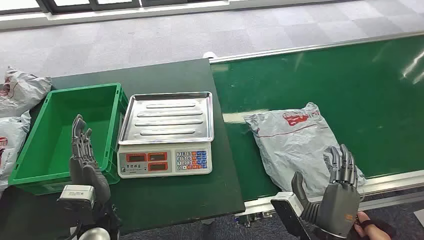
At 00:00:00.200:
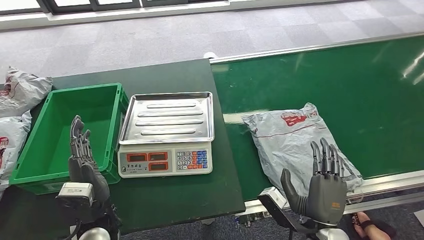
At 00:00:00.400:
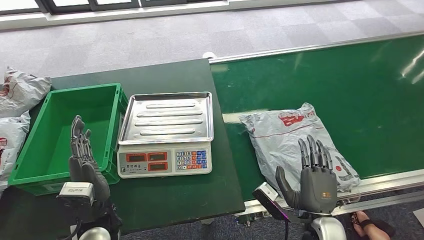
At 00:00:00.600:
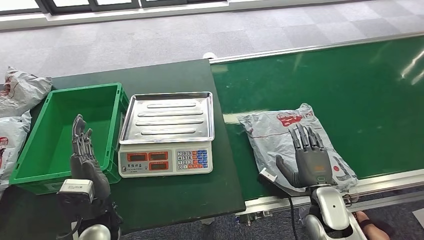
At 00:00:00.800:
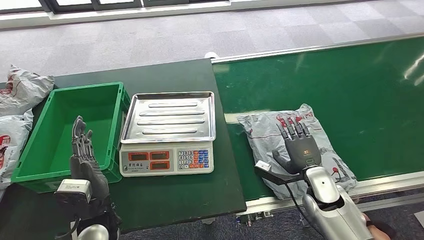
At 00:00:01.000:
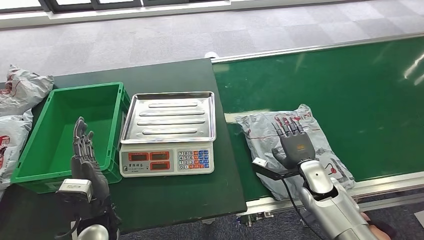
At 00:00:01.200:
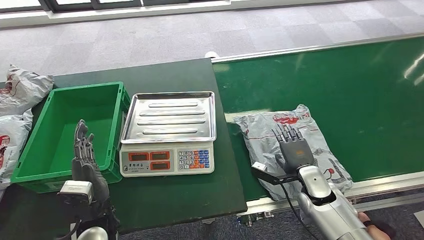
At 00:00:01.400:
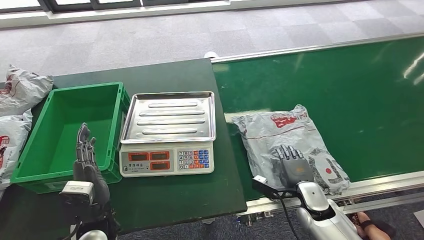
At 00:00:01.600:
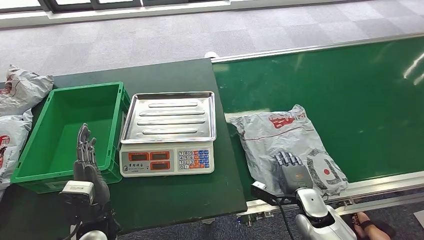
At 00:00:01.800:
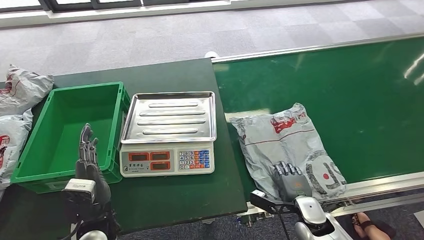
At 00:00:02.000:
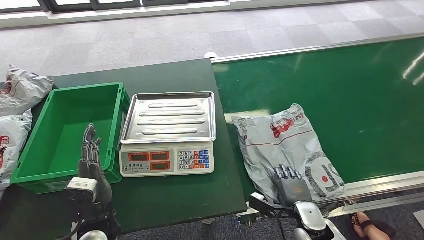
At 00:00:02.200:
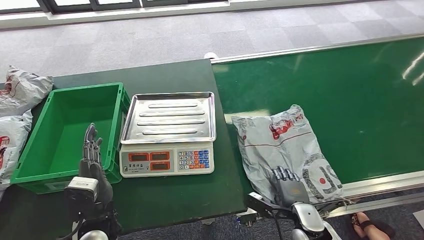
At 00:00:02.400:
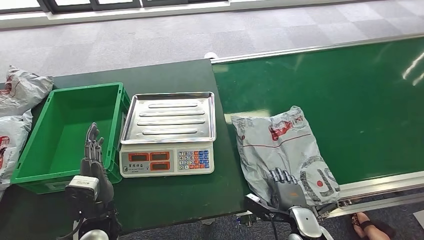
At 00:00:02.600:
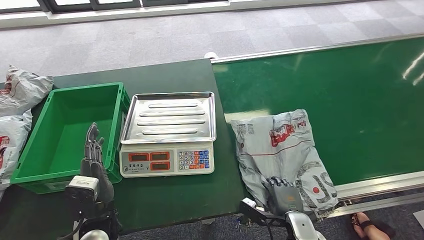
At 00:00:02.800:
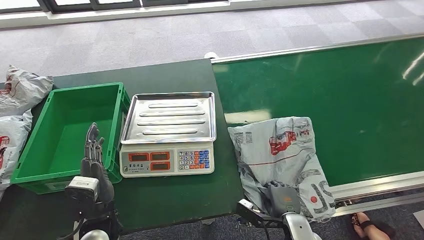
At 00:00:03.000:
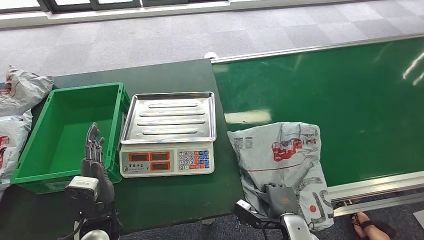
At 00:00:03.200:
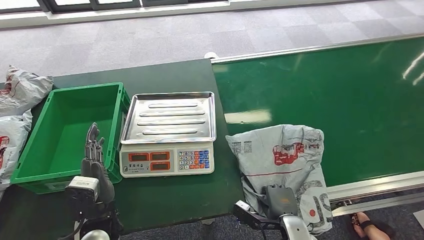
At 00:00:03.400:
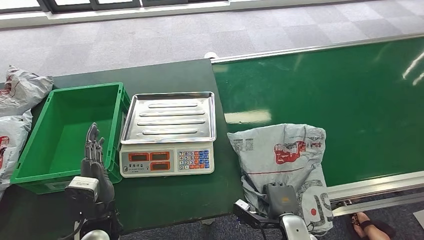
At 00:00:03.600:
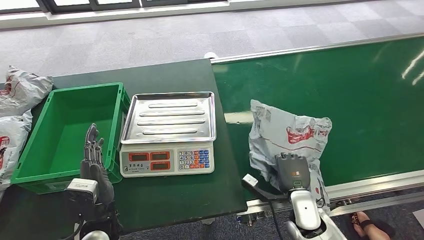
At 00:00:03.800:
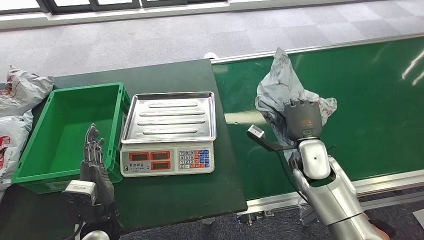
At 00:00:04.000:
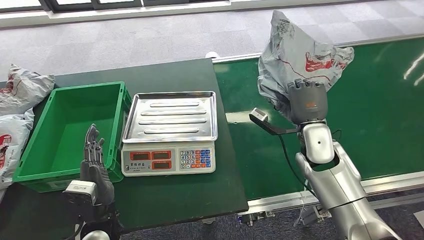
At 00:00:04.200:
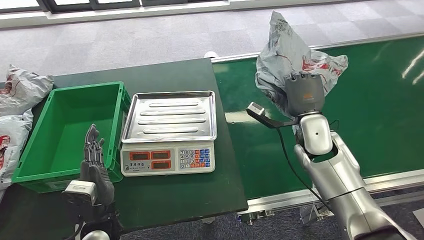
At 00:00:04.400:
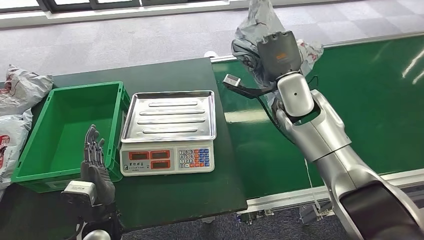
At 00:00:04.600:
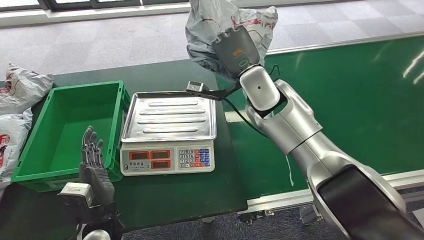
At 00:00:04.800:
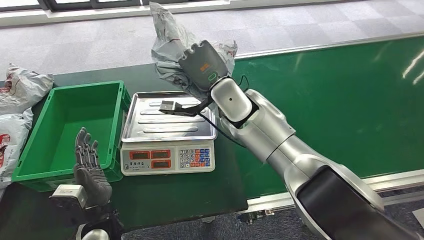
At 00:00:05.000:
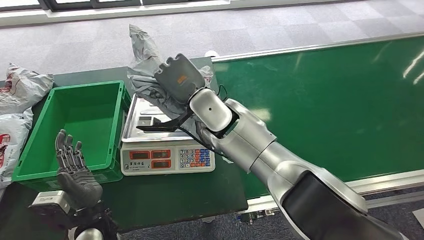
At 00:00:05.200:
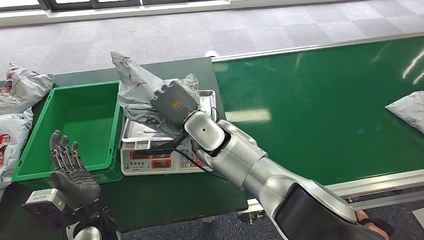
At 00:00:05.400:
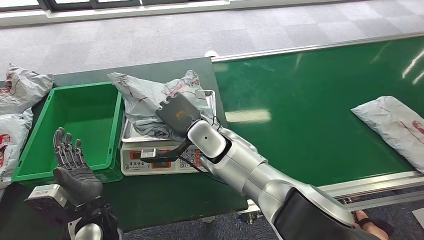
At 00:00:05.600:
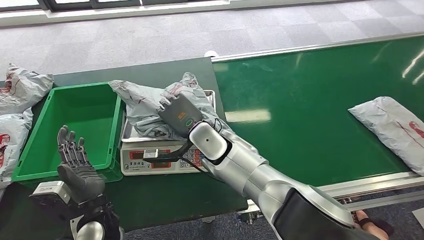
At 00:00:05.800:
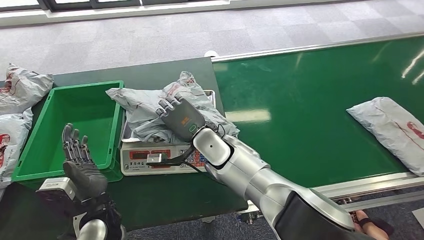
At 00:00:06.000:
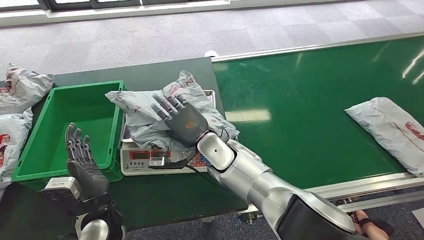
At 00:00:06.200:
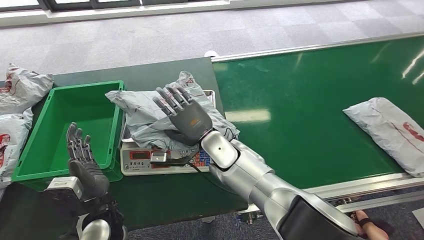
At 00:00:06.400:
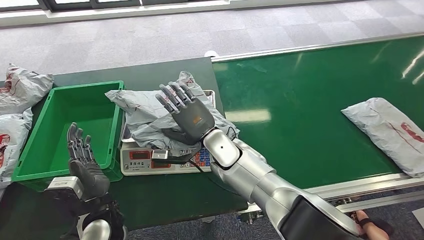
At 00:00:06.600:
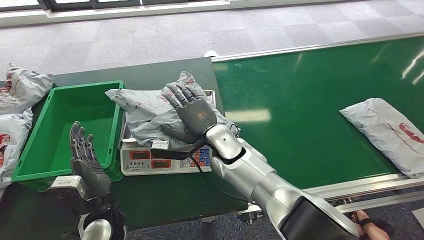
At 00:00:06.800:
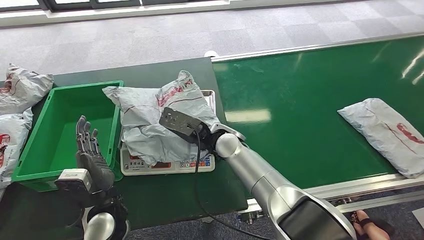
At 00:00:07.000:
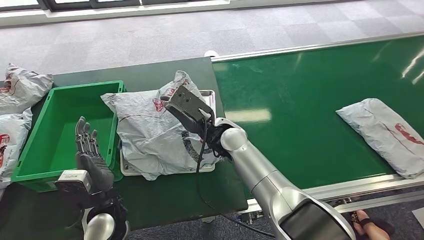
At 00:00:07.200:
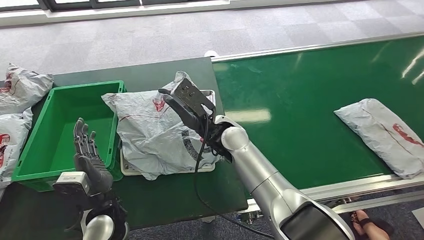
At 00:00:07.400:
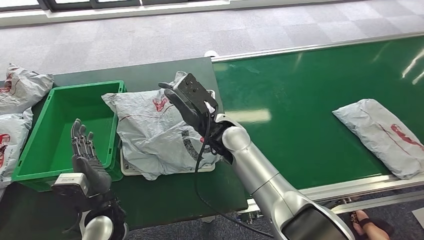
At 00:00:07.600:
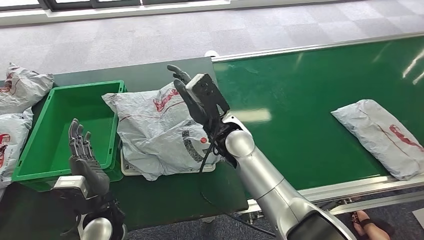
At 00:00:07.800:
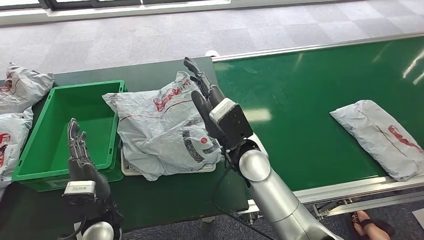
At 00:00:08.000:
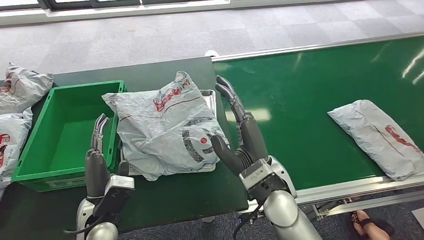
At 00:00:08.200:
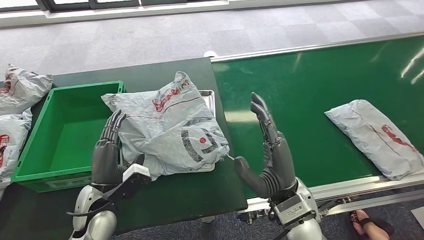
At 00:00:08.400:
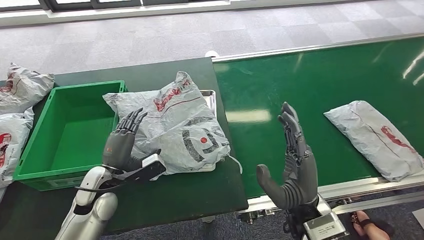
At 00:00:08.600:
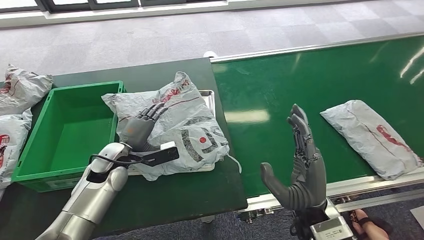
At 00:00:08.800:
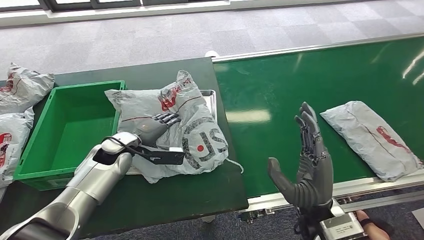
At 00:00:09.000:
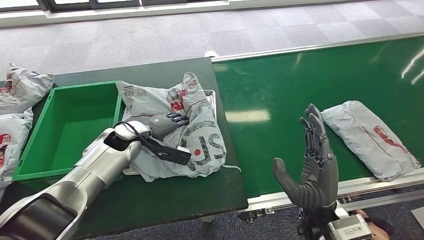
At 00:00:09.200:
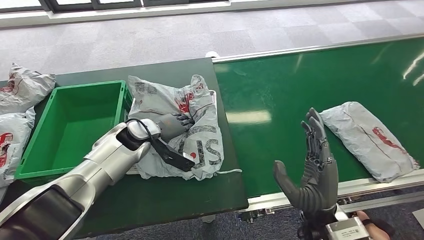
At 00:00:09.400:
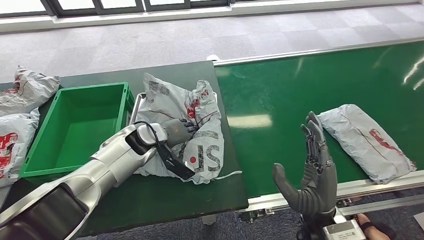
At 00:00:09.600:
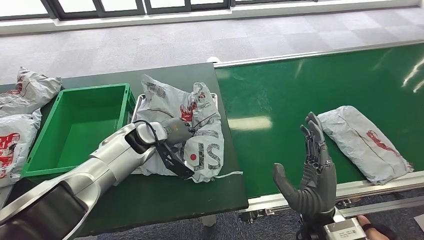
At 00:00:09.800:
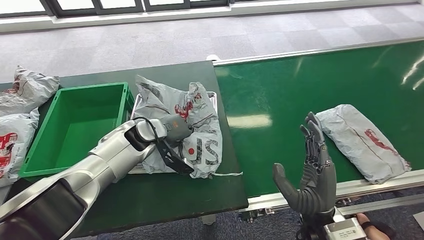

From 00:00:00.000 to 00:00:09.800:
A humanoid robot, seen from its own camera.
Step, from 00:00:00.000 to 00:00:04.400: Pick up the package from the conveyor belt.
Step, from 00:00:04.600 to 00:00:06.600: Place the package onto the inbound machine.
From 00:00:01.400 to 00:00:02.800: The right hand is displaced backward and to the left by about 10 cm.

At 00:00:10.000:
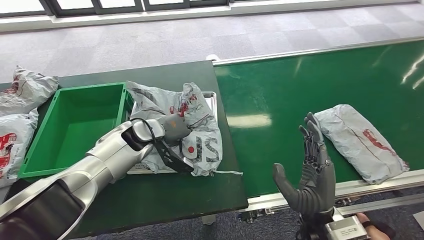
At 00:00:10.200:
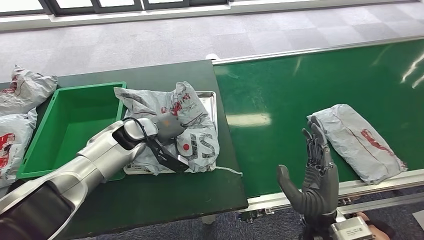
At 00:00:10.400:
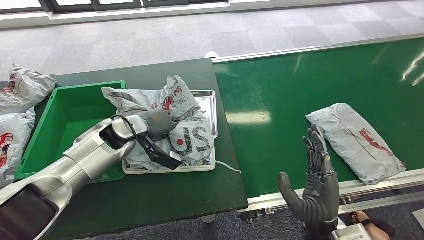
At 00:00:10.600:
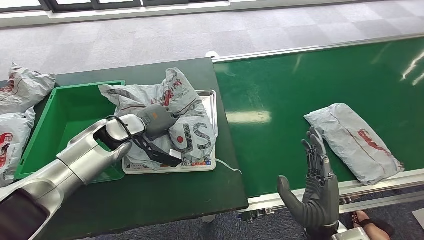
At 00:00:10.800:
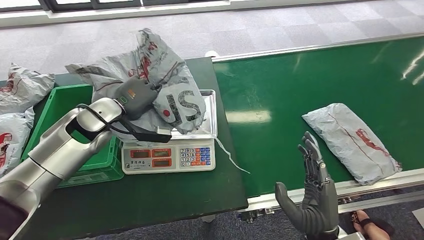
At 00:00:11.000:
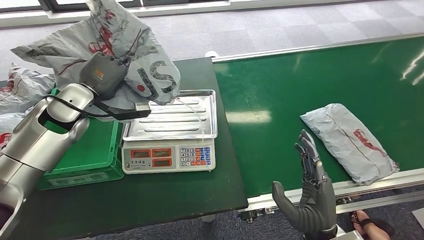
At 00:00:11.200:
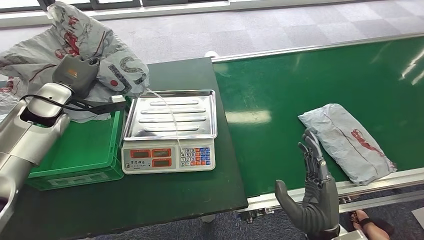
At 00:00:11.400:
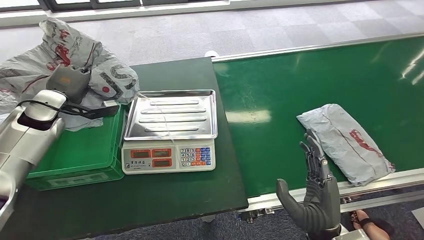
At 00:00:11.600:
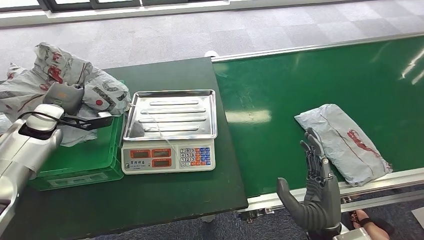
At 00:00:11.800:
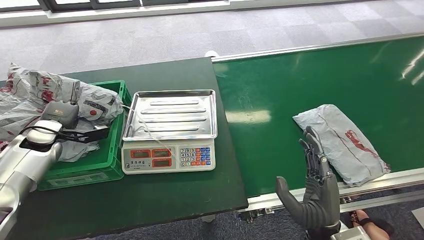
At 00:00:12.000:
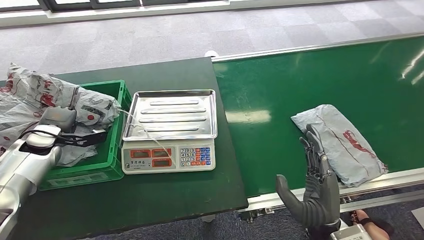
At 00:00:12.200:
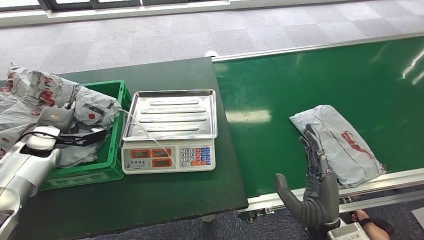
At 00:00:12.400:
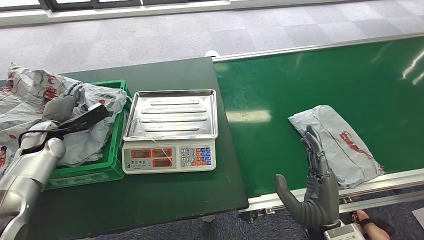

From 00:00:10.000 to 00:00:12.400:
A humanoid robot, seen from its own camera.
Step, from 00:00:11.400 to 00:00:12.400: Place the package into the parcel locker.
